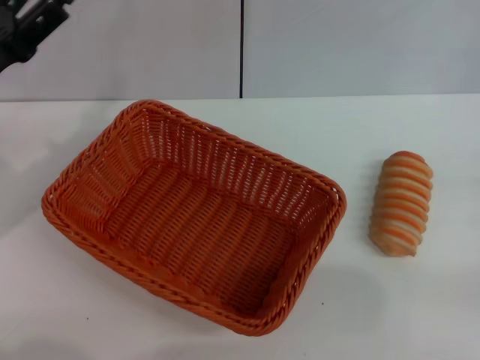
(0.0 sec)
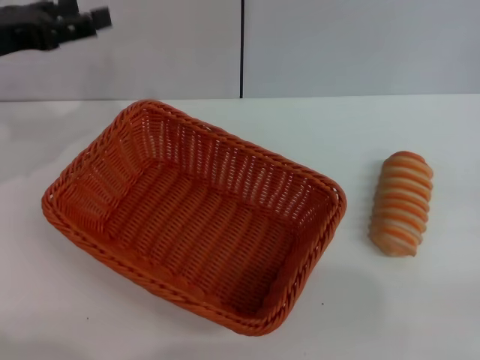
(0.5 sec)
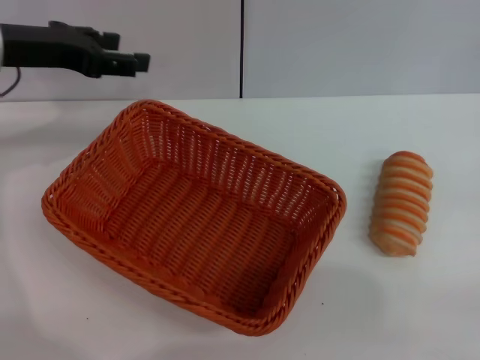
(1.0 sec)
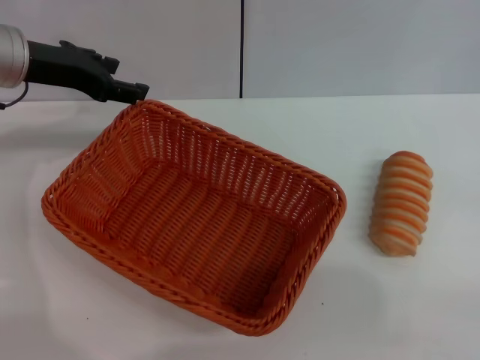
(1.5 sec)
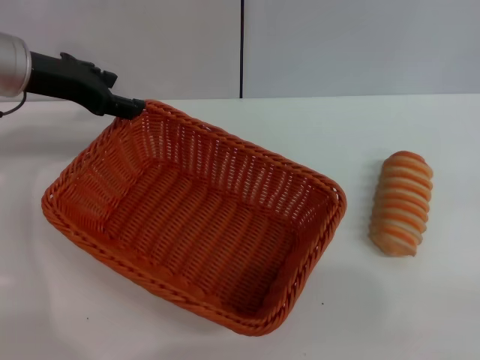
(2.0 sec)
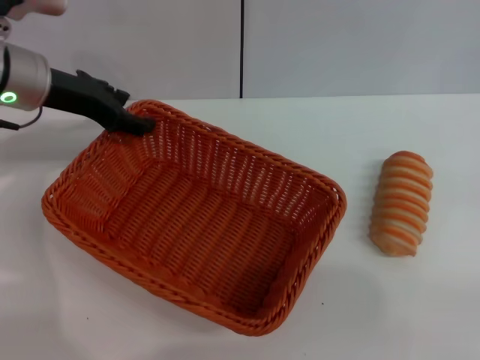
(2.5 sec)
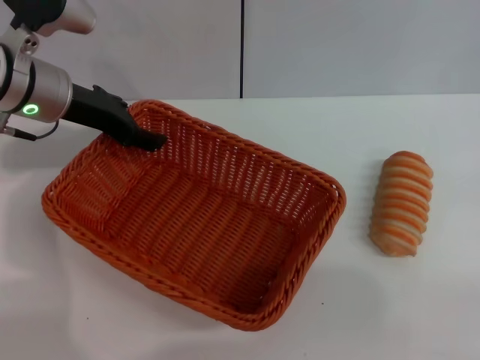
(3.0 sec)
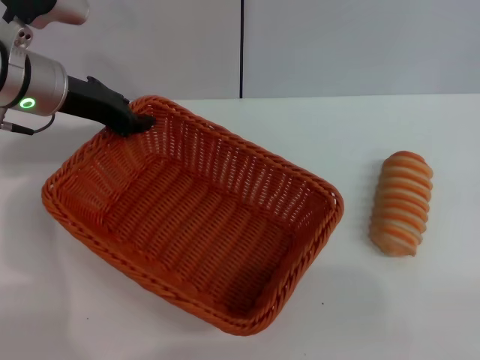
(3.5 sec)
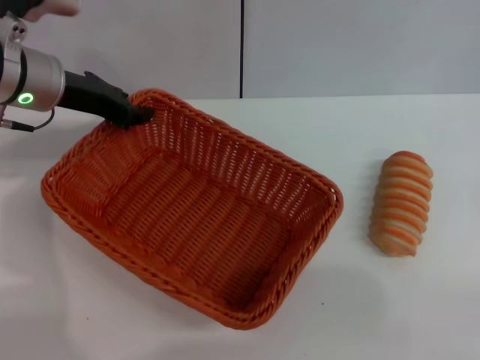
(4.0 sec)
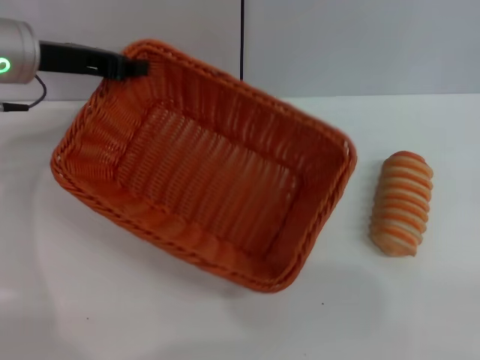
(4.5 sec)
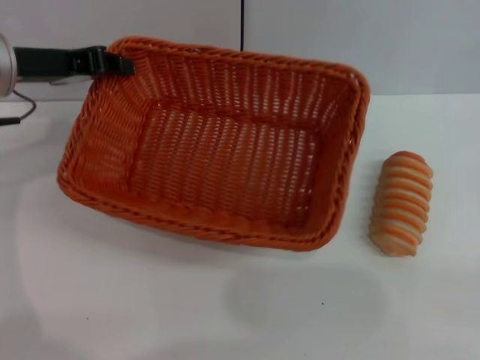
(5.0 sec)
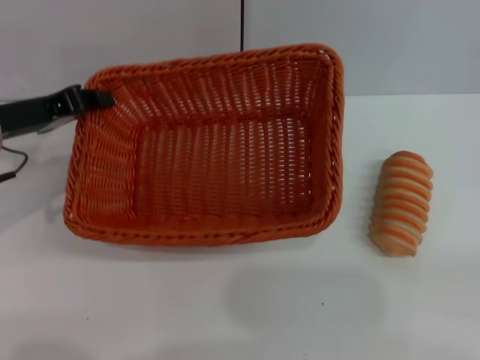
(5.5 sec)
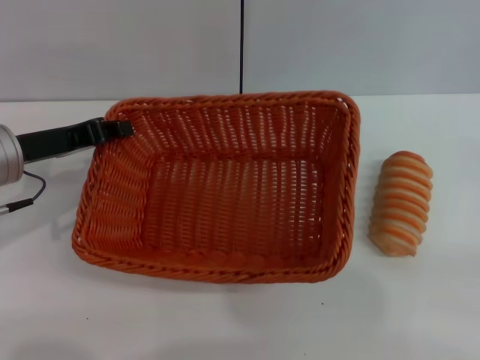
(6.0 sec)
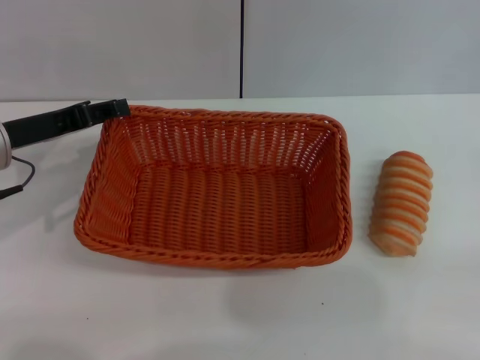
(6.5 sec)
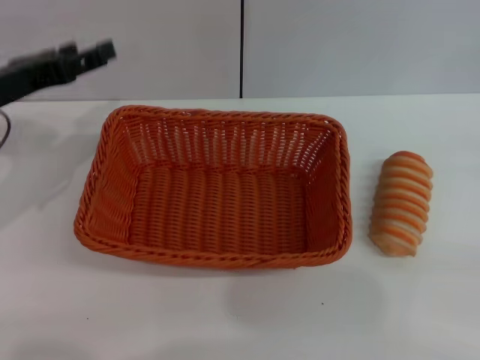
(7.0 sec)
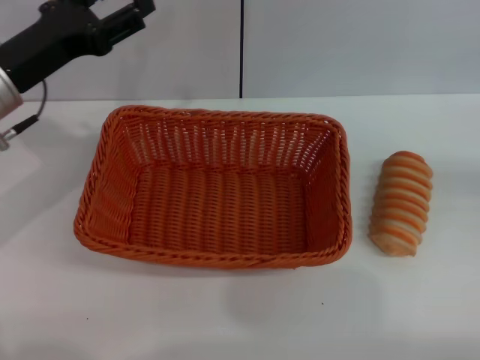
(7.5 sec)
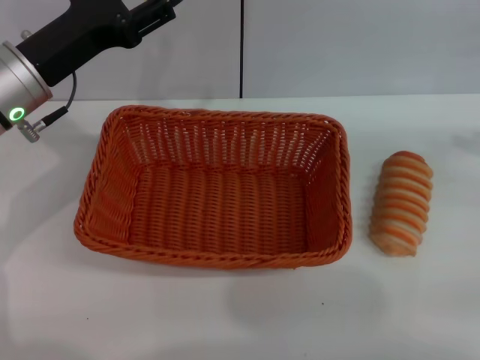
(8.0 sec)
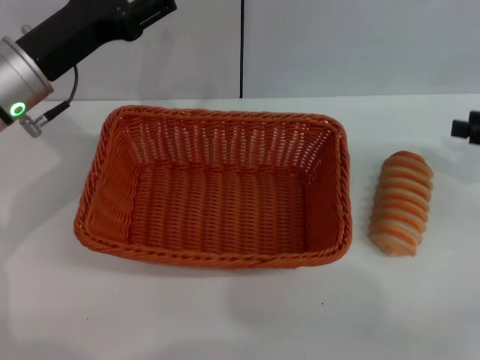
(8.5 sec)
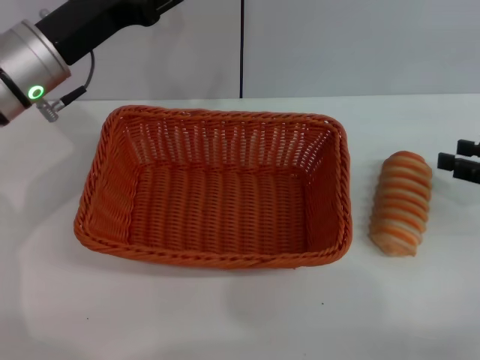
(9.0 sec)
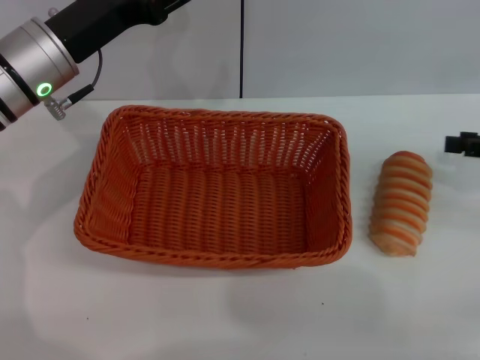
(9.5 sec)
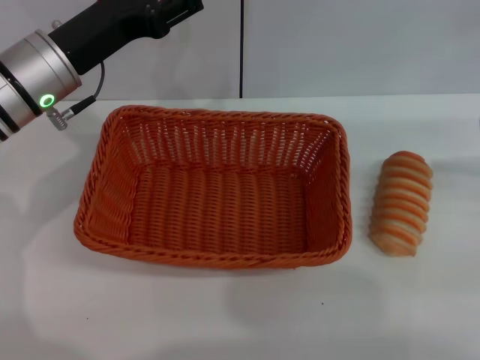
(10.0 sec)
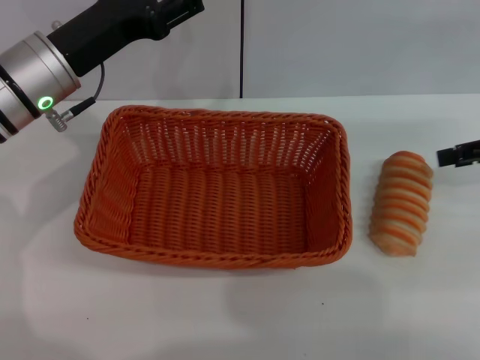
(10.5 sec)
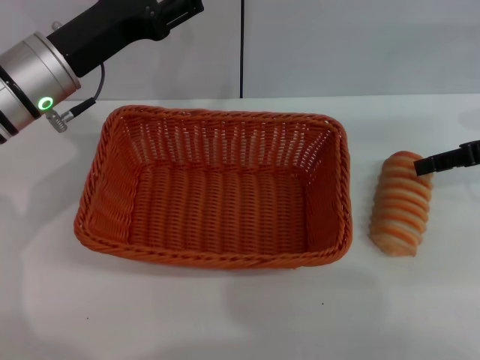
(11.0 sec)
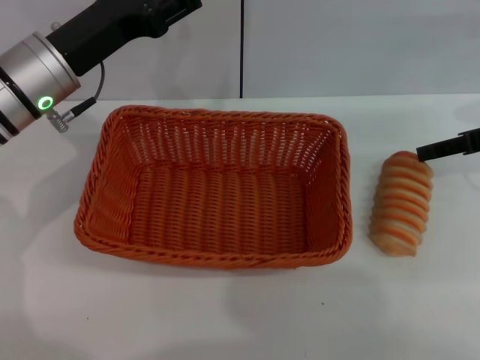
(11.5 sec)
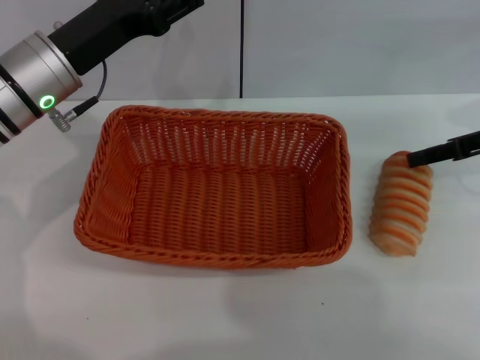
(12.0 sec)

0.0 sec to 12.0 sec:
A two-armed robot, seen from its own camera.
Step, 0.0 sec to 4.5 sec: Pick up the light basket with the left gripper.
Step, 5.0 sec to 6.5 sec: Place the light basket in the center of view with the left gripper.
0.0 sec to 2.0 sec: The left gripper shifts about 10 cm forward.
2.0 sec to 4.0 sec: The left gripper closes up.
4.0 sec to 6.0 sec: The left gripper shifts roughly 10 cm backward.
6.0 sec to 8.0 sec: The right gripper travels upward and forward by some 15 cm. The left gripper ends up roughly 5 cm from where it was, and opens its fingers.
10.0 sec to 12.0 sec: The right gripper heads to the left and downward, covering roughly 10 cm.

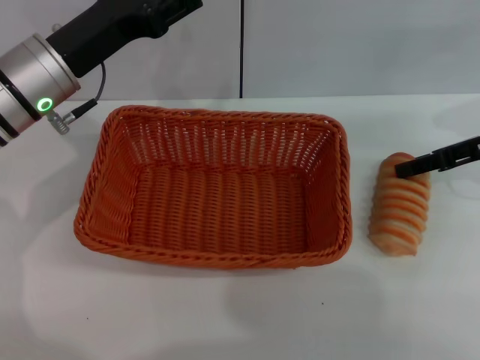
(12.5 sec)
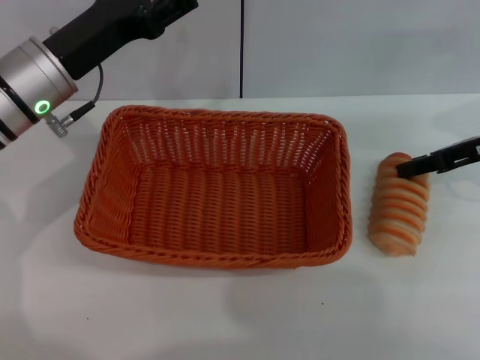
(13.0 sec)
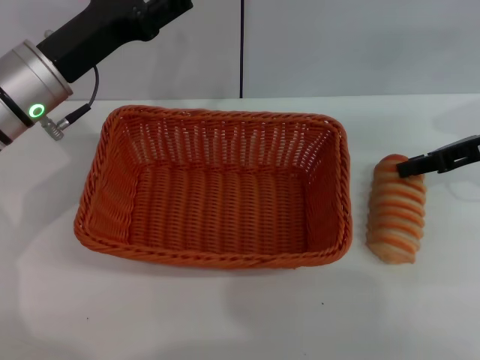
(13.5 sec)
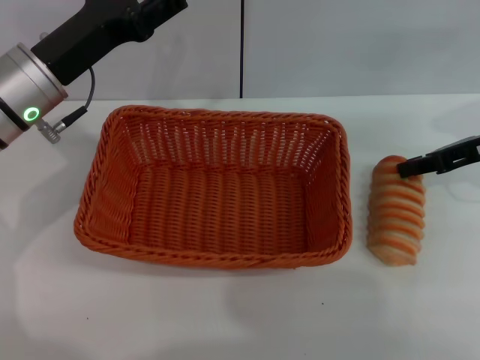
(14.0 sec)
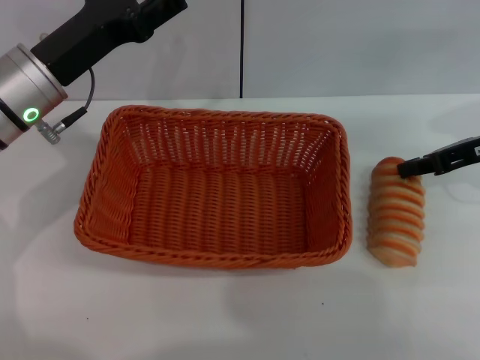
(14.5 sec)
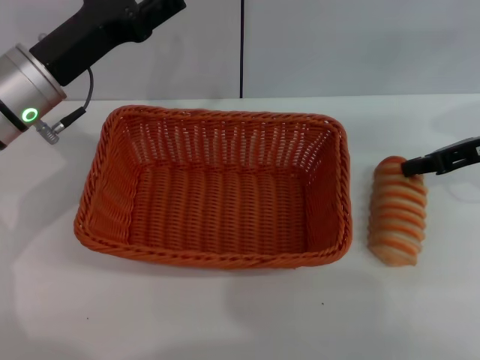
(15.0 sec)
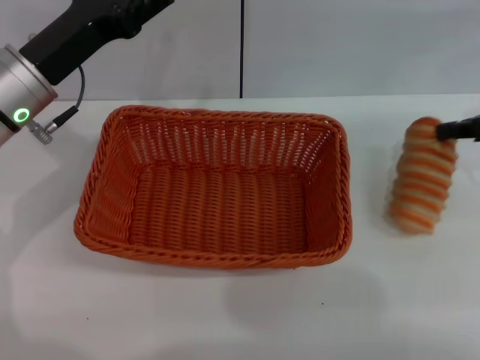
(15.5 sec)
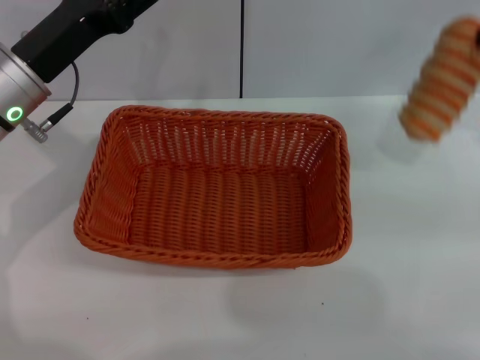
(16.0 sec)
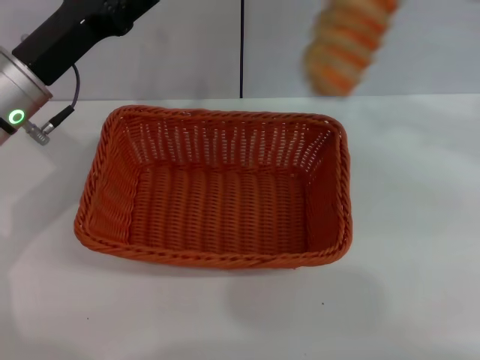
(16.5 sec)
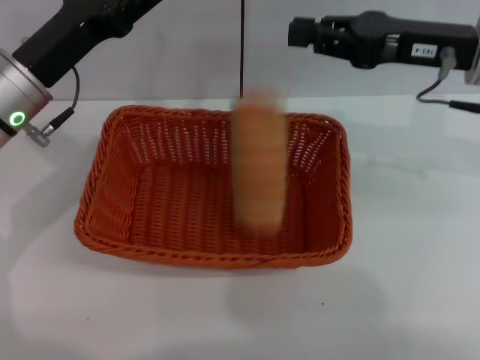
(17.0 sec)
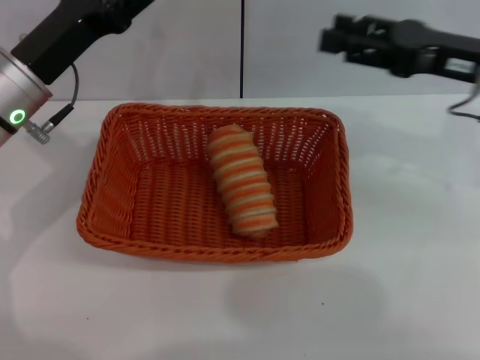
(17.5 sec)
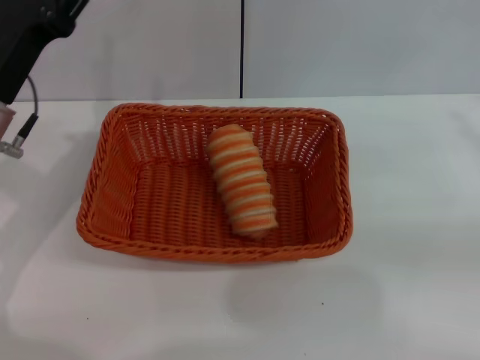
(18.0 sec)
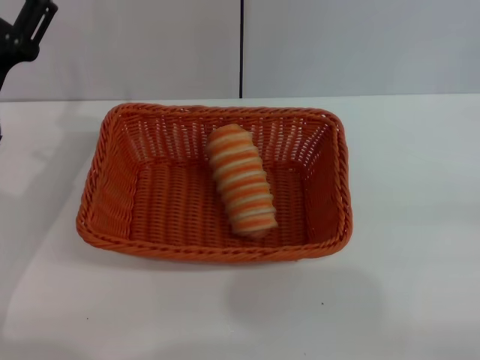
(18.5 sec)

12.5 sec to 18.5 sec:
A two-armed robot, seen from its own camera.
Step, 12.5 sec to 15.5 sec: Pick up the long bread with the right gripper.
Step, 16.0 sec to 17.5 sec: Place the long bread into the light basket with the right gripper.
12.5 sec to 14.5 sec: The right gripper closes.
14.5 sec to 16.5 sec: The right gripper goes about 10 cm upward.
16.5 sec to 18.5 sec: The left gripper changes place by about 5 cm, while the right gripper heads backward, to the right and downward, covering approximately 30 cm, and opens its fingers.
